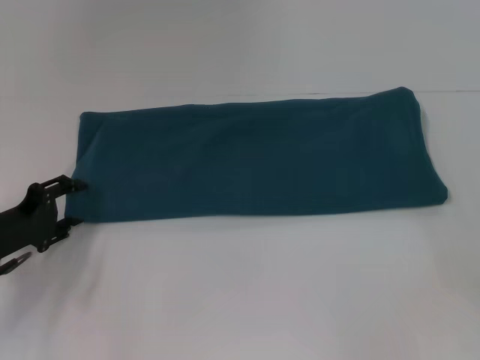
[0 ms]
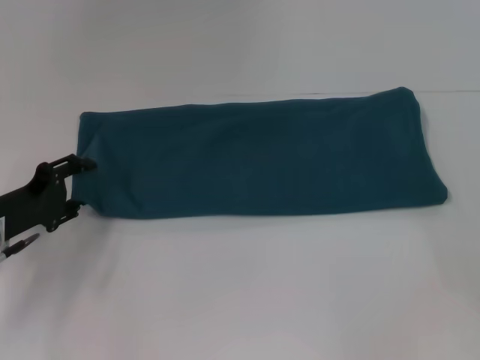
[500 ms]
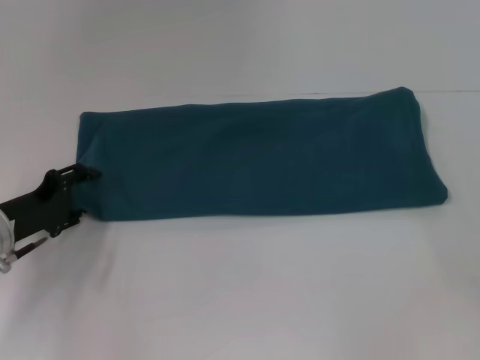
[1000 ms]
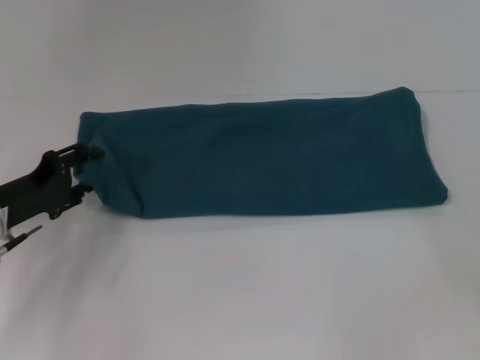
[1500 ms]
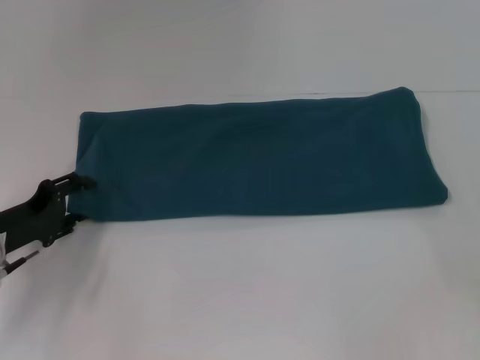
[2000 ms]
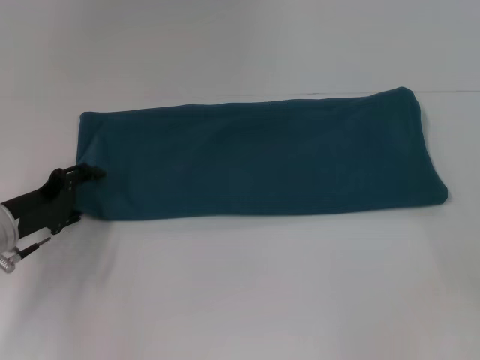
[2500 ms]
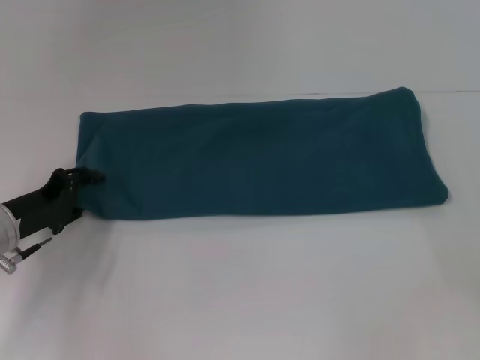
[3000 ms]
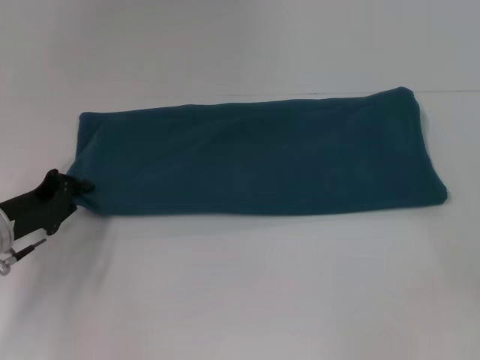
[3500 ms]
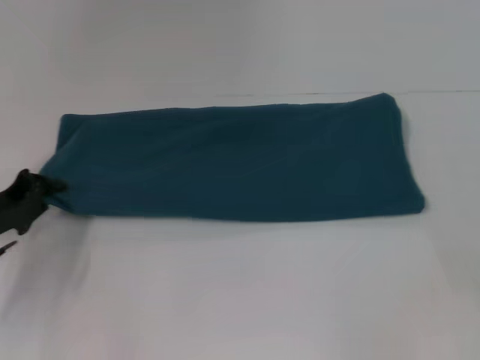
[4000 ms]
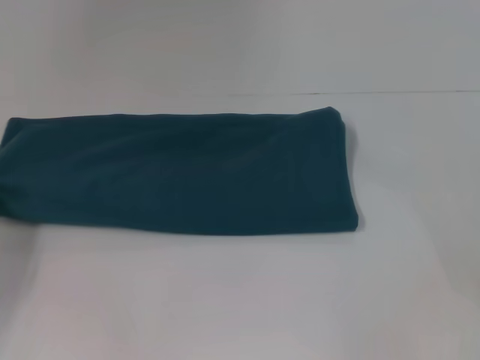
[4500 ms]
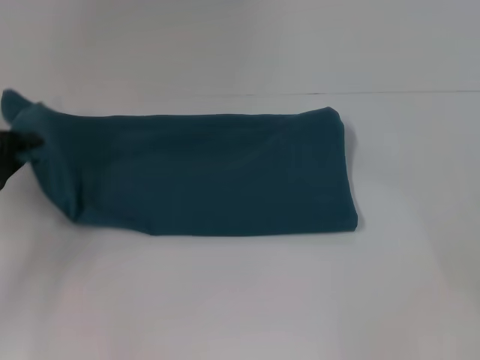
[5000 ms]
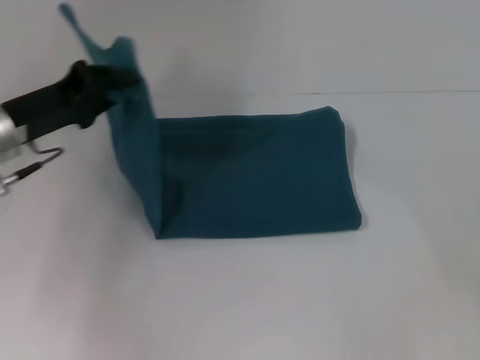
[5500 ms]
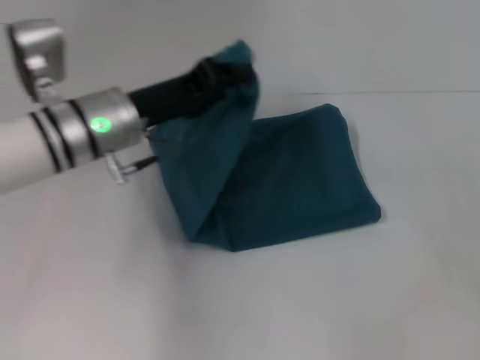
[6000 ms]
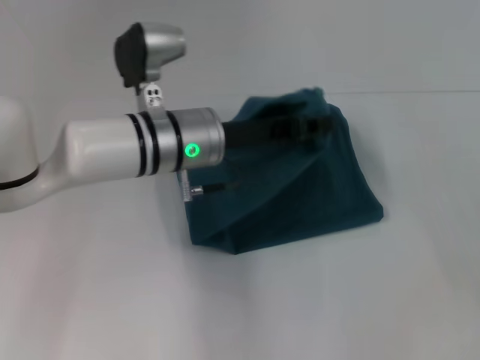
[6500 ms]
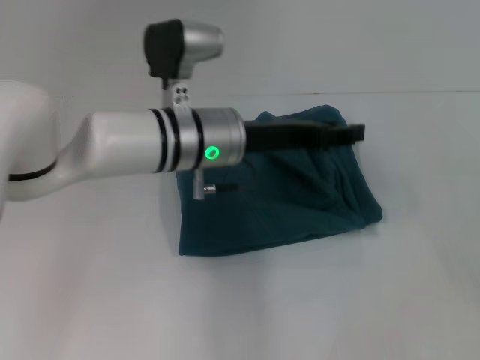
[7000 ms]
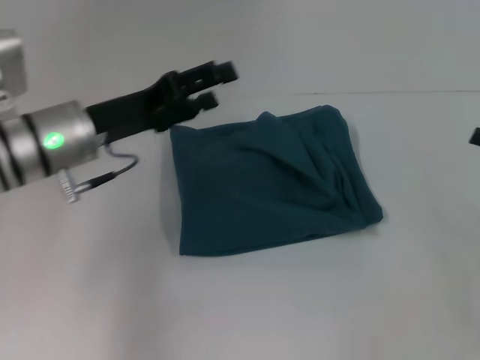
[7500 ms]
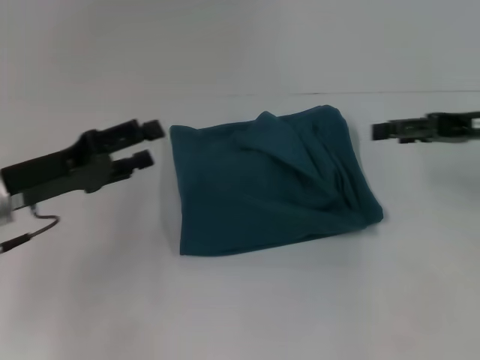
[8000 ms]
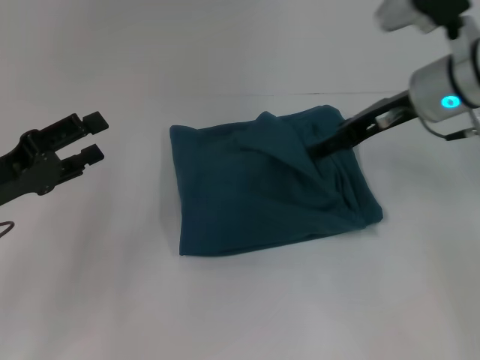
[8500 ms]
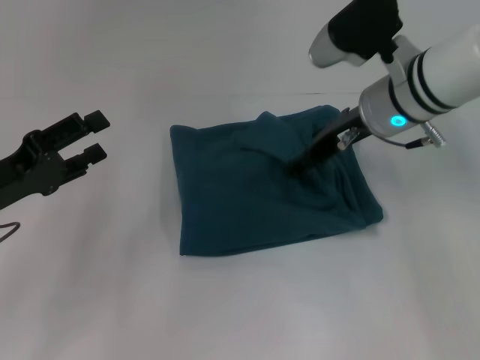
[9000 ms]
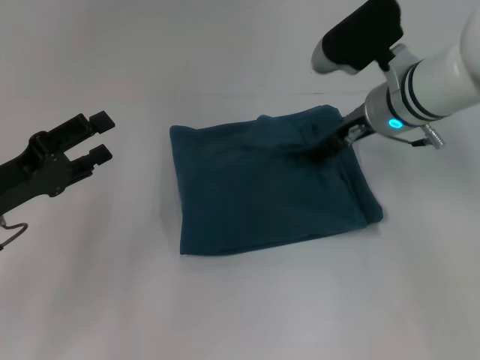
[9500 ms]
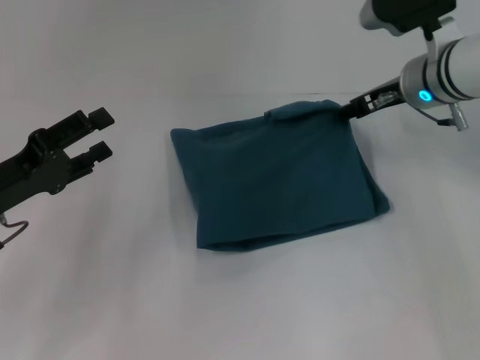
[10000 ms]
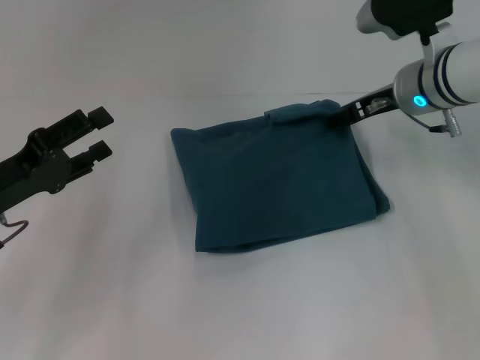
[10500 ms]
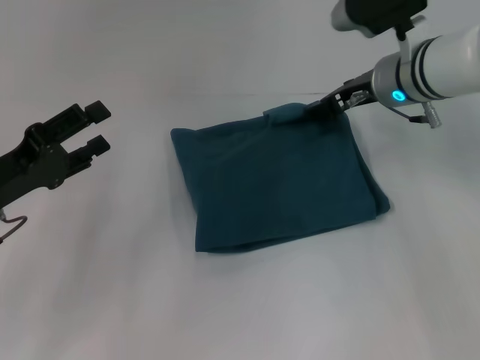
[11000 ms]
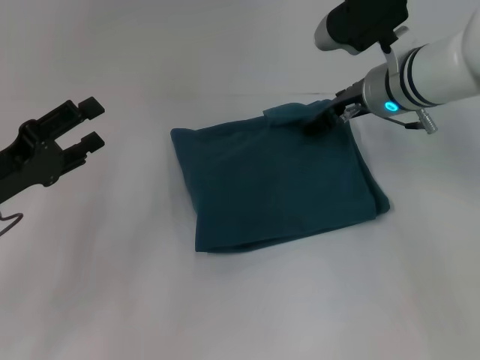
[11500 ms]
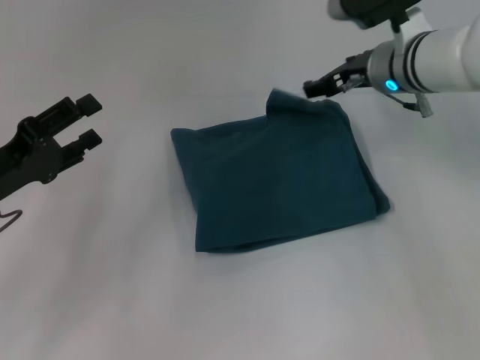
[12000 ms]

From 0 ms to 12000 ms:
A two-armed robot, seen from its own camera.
Step, from 0 ms to 7000 ms: Fold the clothes to the left.
From 0 ms to 2000 ms: The grippers stay close to where they were, moving slightly.
From 2000 ms to 4000 ms: The left gripper closes.
From 4000 ms to 6000 ms: The left gripper shifts roughly 20 cm to the right, upward and forward.
From 6000 ms to 8000 ms: The left gripper shifts about 15 cm to the left and backward, and opens; the right gripper moves forward, to the left and upward, approximately 15 cm.
From 8000 ms to 10000 ms: The right gripper moves to the left and forward, approximately 15 cm.
From 10000 ms to 12000 ms: The grippers make only small movements.

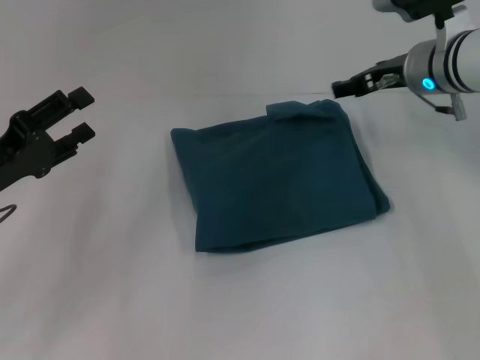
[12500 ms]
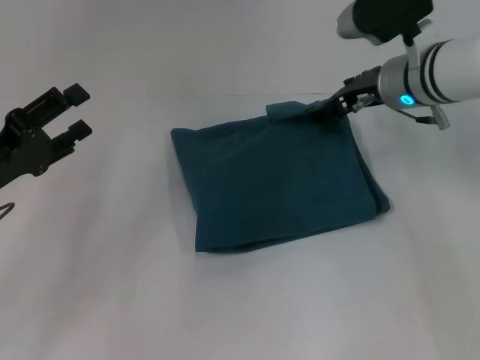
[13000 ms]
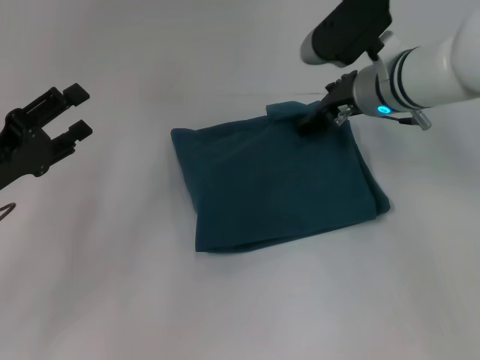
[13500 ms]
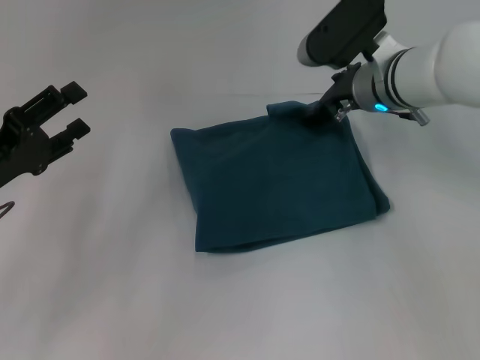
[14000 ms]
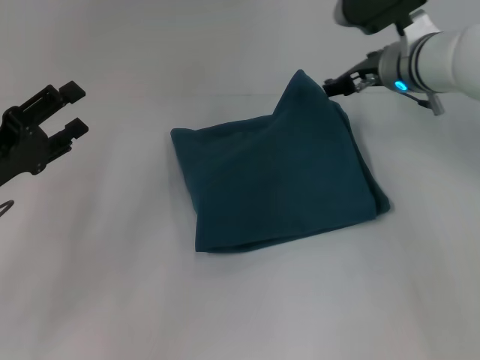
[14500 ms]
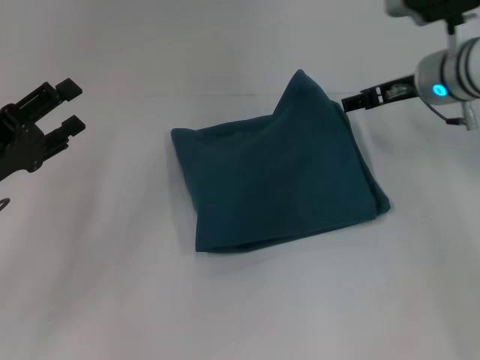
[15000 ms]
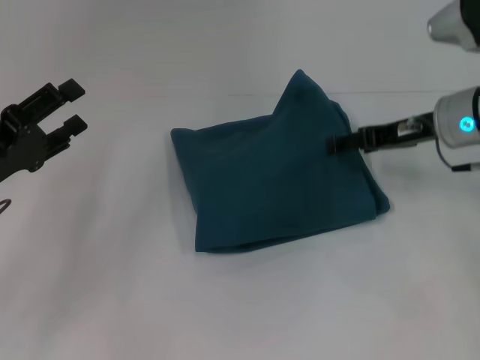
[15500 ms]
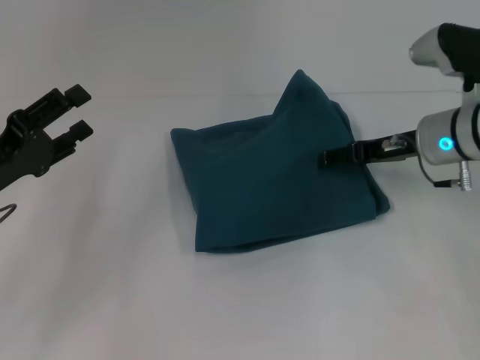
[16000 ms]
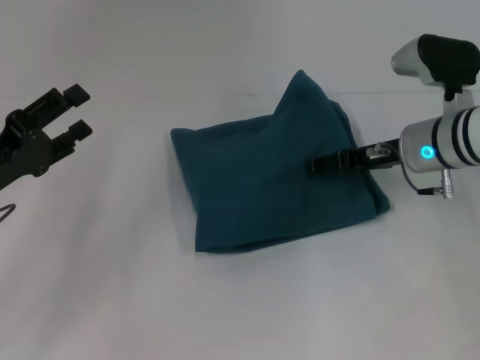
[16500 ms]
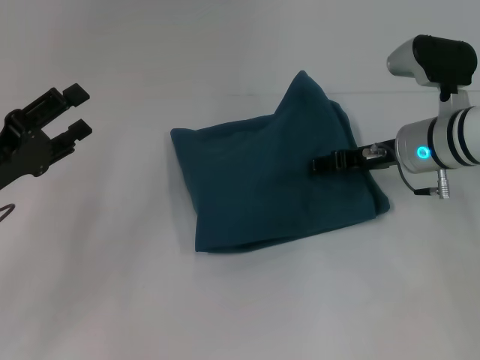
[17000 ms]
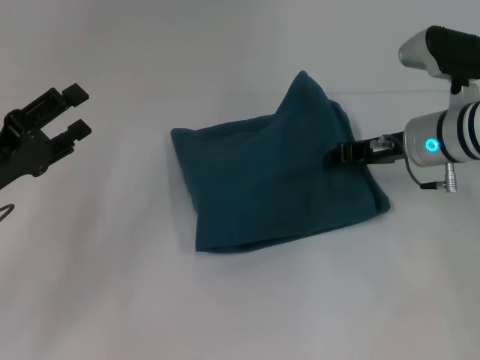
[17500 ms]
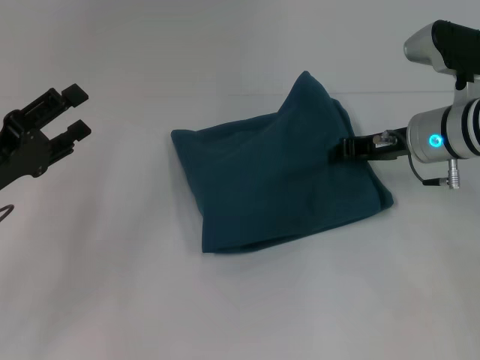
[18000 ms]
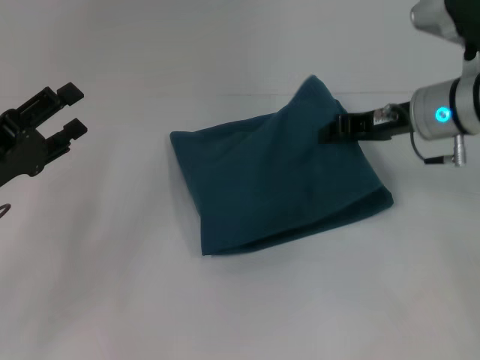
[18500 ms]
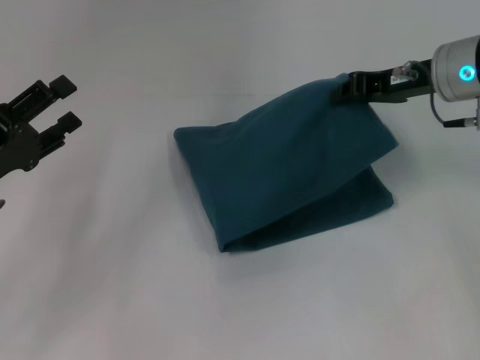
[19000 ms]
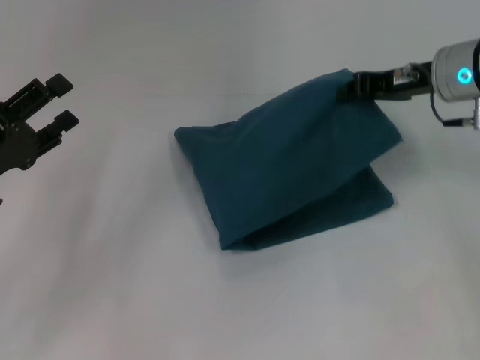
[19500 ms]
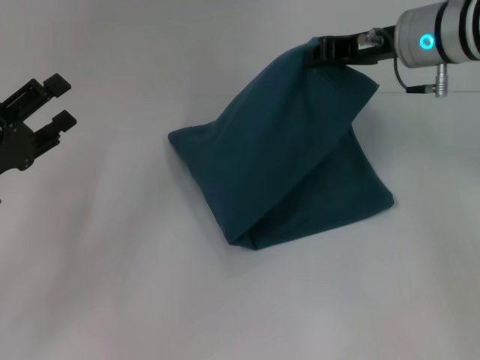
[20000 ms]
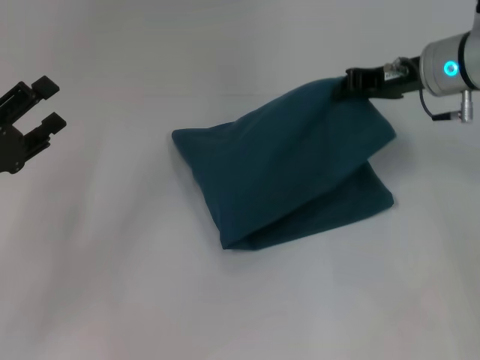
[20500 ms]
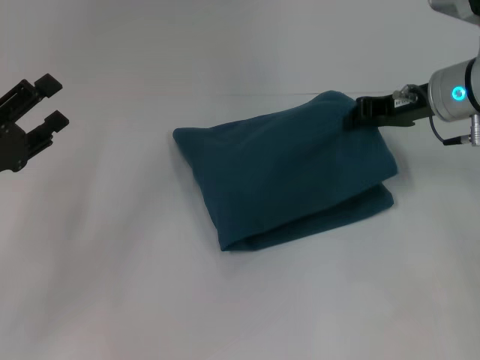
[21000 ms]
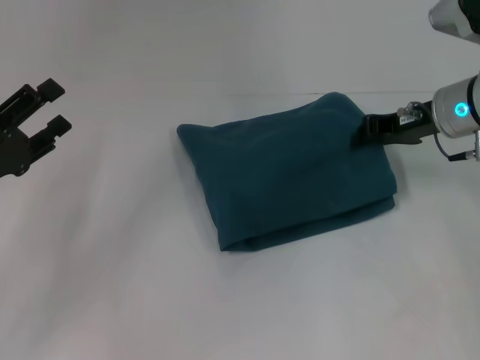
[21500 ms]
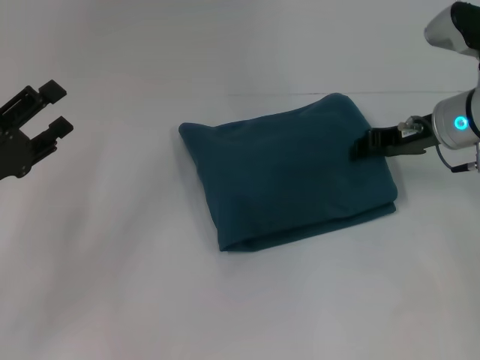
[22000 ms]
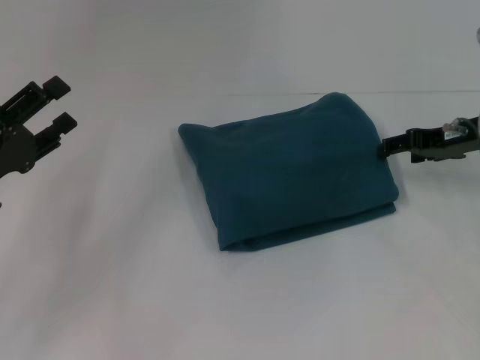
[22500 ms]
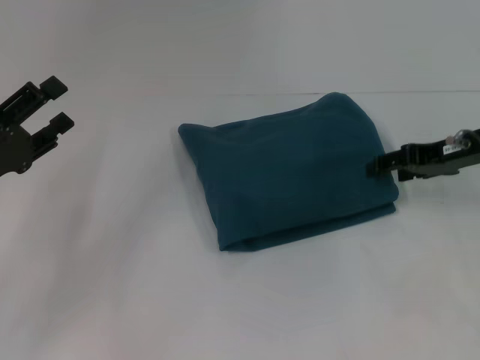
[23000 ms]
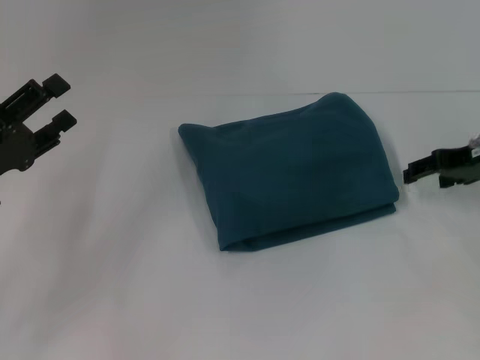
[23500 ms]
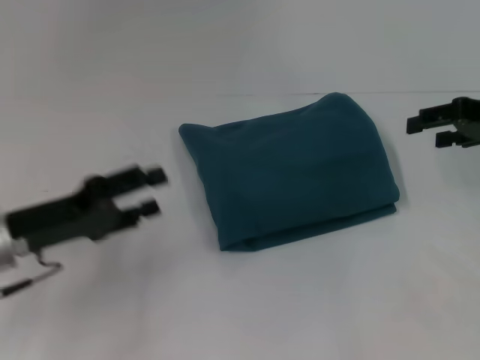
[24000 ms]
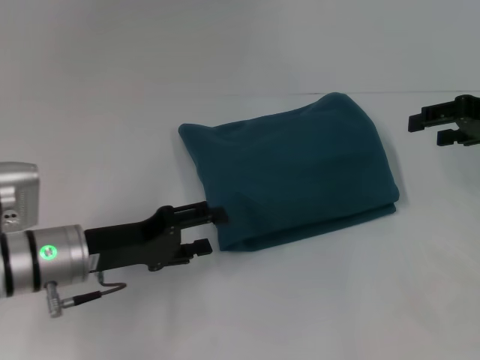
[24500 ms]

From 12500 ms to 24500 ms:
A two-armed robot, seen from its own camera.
From 14500 ms to 16500 ms: The right gripper shifts approximately 5 cm backward and downward.
From 16500 ms to 18500 ms: The right gripper closes up.
From 20500 ms to 22500 ms: The right gripper goes about 5 cm to the right, and opens up.
From 22500 ms to 24500 ms: The right gripper heads upward, covering approximately 5 cm; the left gripper is displaced to the right by approximately 10 cm.

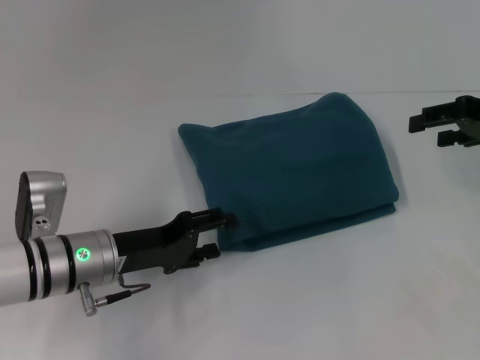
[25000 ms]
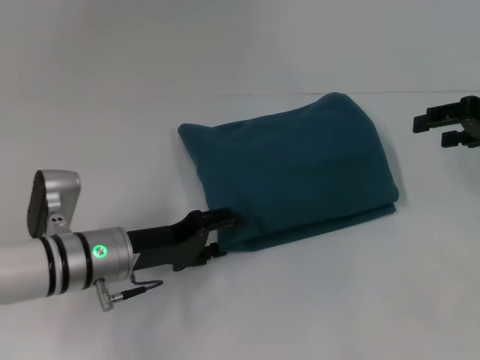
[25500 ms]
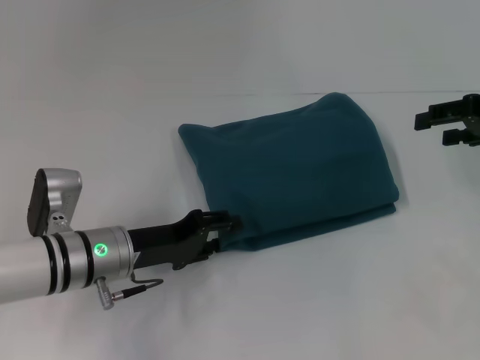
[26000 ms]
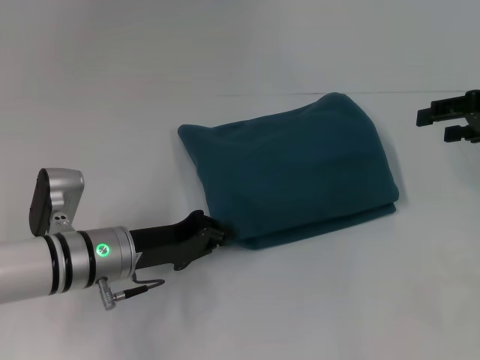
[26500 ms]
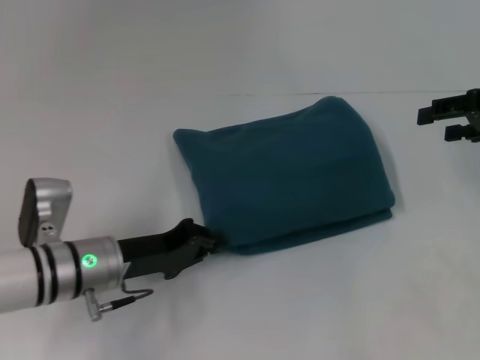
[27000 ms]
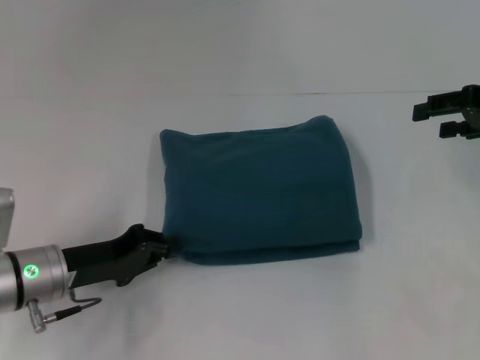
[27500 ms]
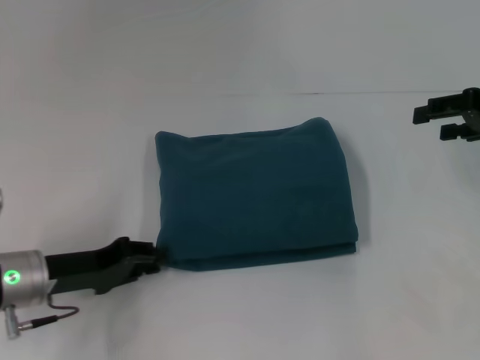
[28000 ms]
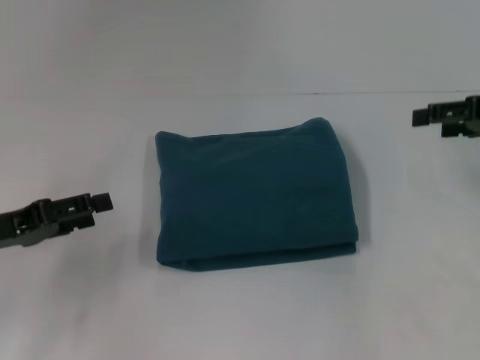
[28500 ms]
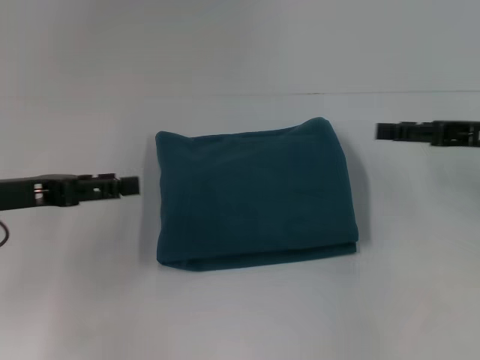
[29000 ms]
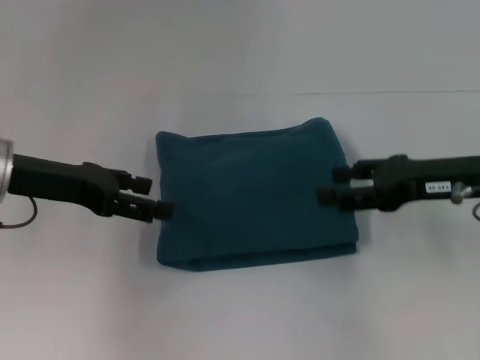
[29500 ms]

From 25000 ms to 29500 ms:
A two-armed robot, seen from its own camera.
From 25000 ms to 27000 ms: The left gripper closes up.
From 27000 ms to 29500 ms: The right gripper goes some 10 cm to the left, downward and backward. The left gripper travels upward and to the left by roughly 15 cm, and opens its fingers.
